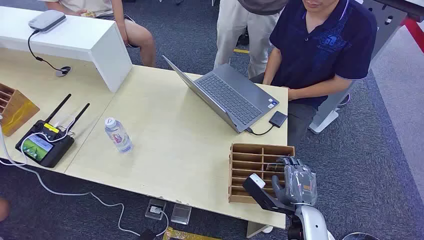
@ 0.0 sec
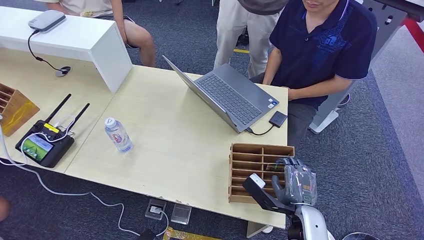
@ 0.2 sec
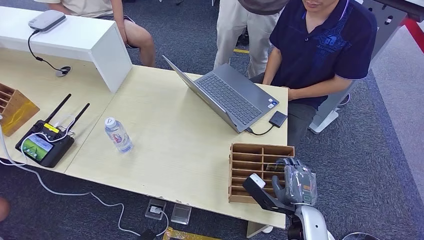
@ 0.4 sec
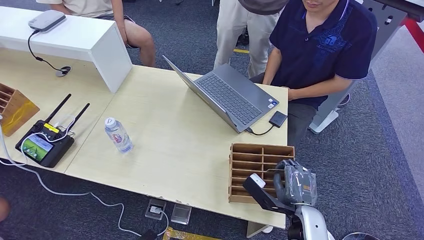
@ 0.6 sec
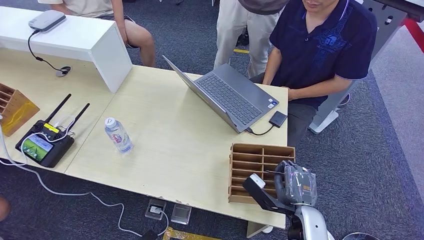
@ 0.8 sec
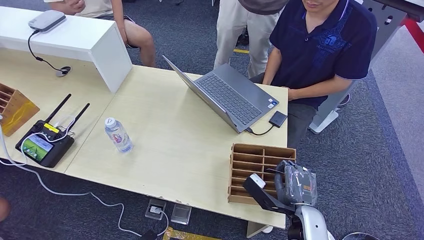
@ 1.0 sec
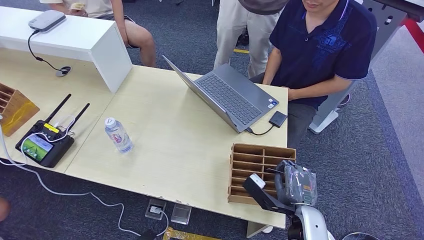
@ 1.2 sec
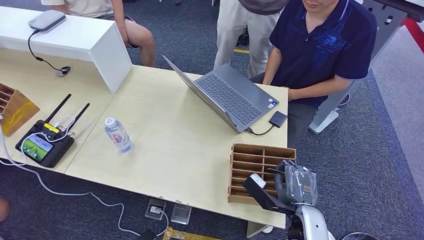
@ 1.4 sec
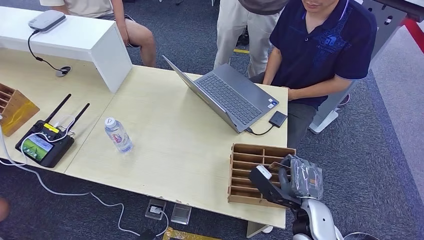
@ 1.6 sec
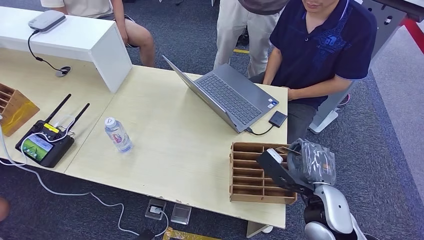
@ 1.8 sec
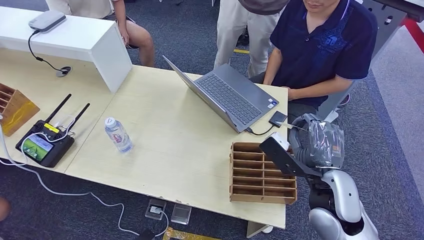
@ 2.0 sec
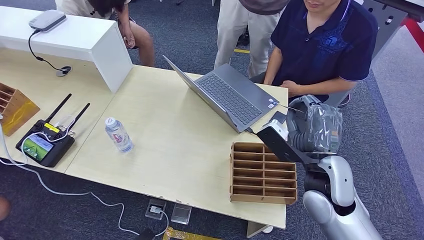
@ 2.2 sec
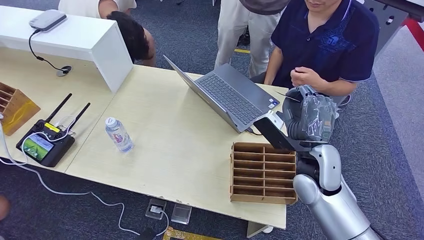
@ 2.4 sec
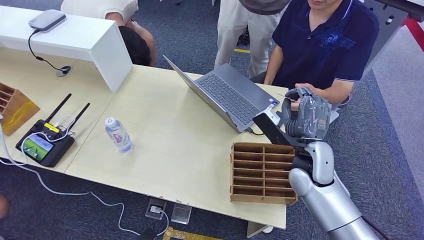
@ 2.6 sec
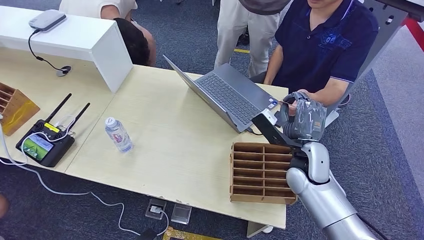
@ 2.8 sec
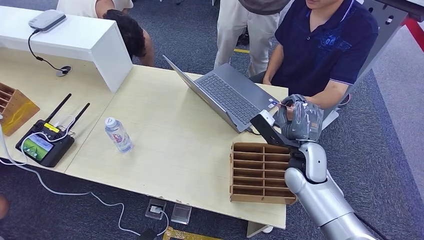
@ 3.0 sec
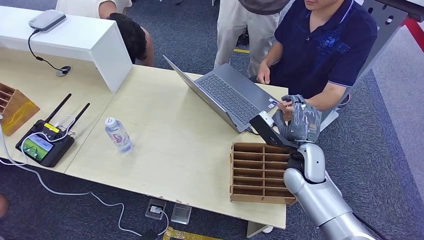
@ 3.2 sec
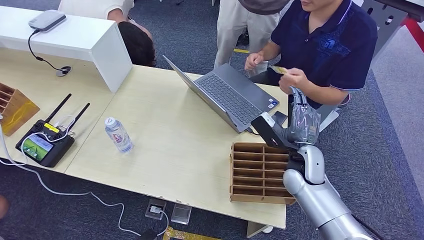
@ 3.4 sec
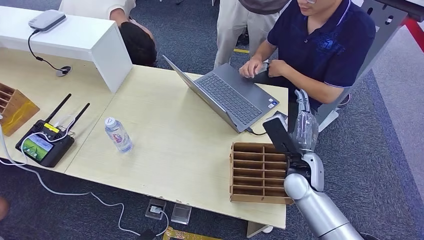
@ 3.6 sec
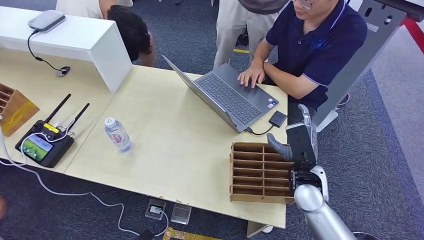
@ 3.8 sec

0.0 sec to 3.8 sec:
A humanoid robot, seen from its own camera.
Step, 0.0 sec to 2.0 sec: Pick up the key card from the card box.
Step, 2.4 sec to 3.8 sec: Hand the key card to the target.
1.2 sec to 2.6 sec: The right hand shifts some 15 cm forward and upward.
2.6 sec to 3.8 sec: The right hand heads downward, covering some 5 cm.
